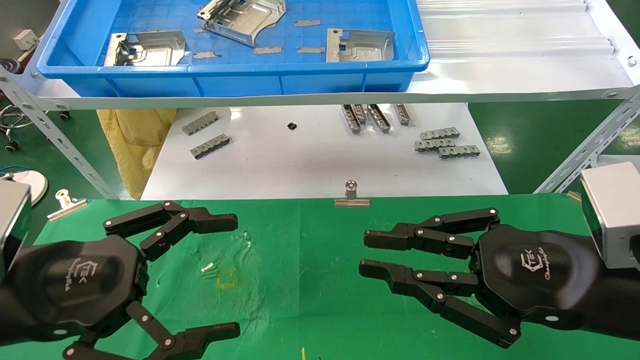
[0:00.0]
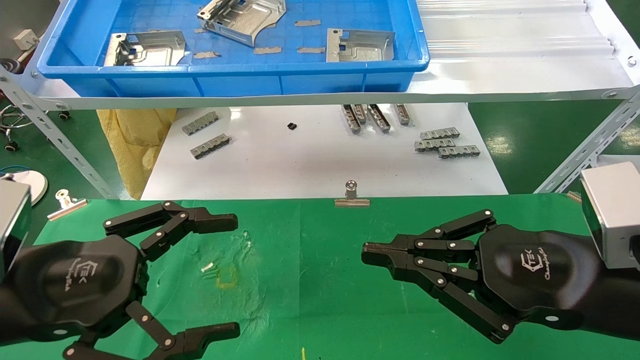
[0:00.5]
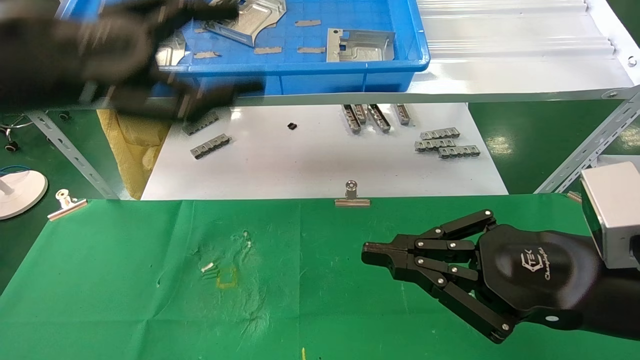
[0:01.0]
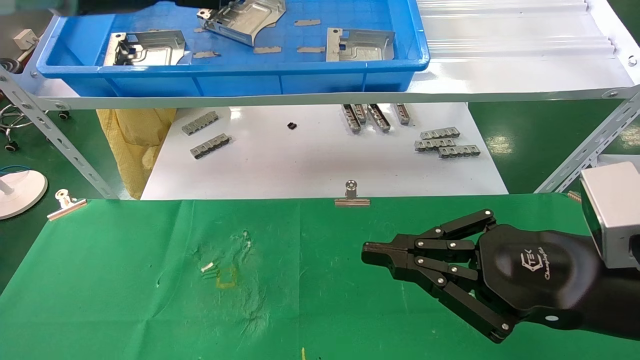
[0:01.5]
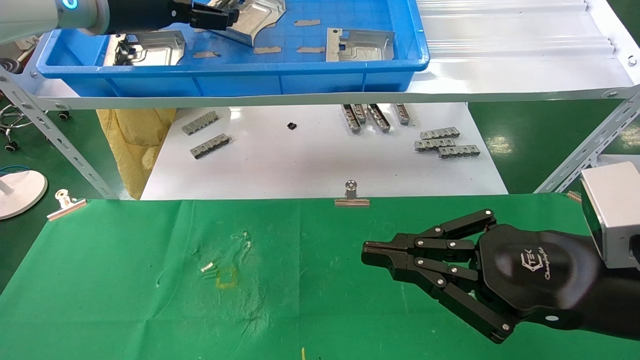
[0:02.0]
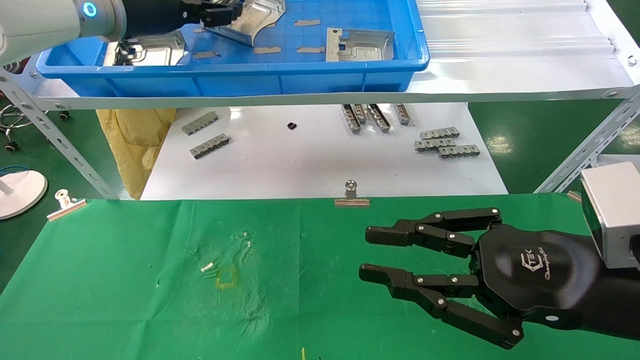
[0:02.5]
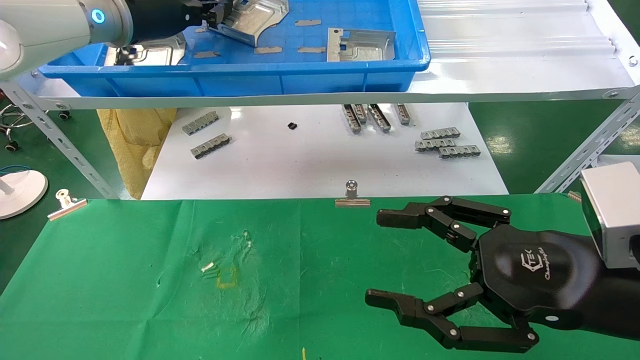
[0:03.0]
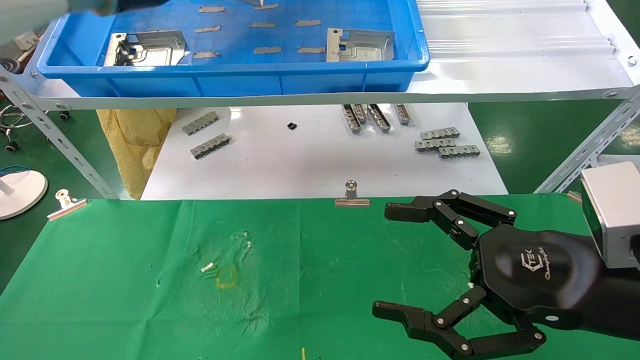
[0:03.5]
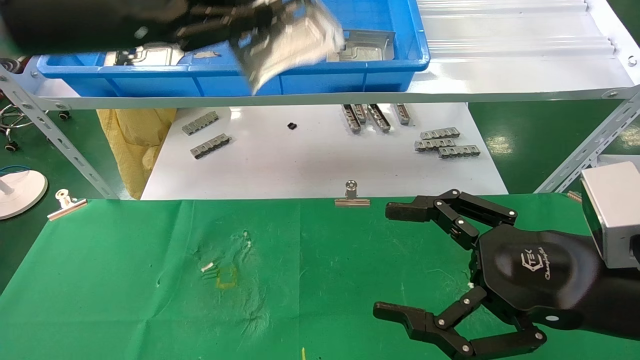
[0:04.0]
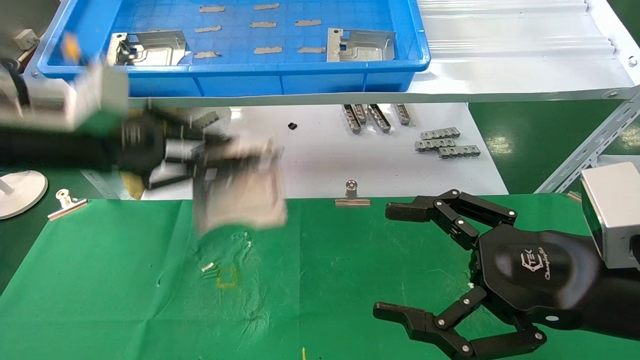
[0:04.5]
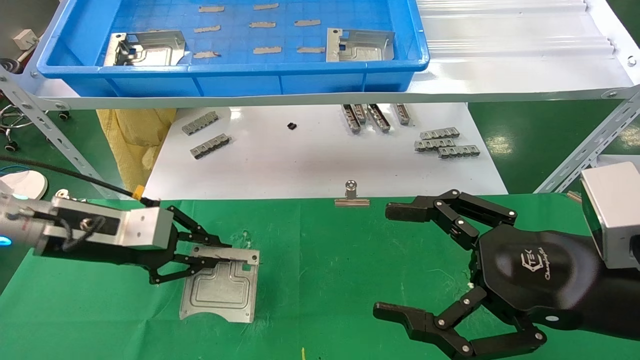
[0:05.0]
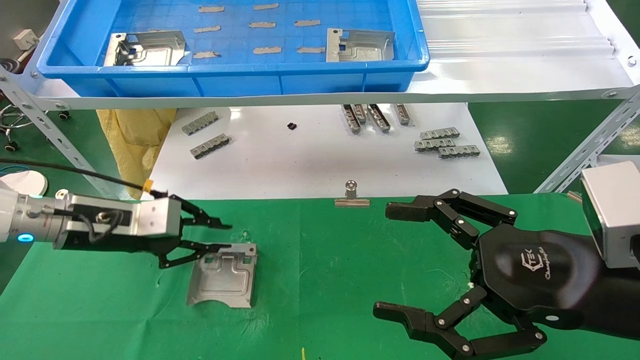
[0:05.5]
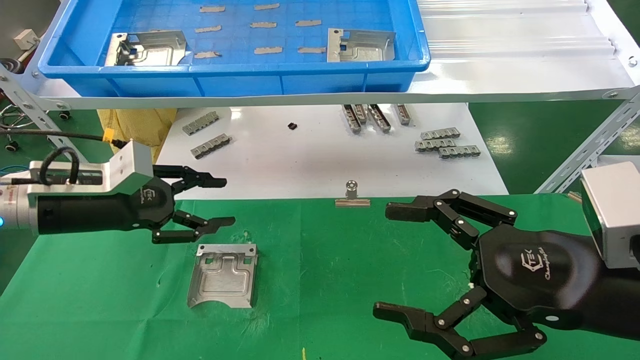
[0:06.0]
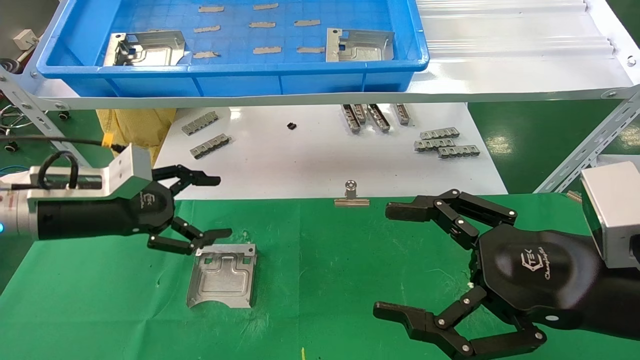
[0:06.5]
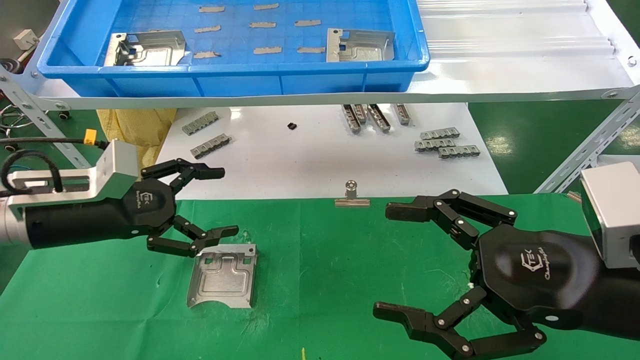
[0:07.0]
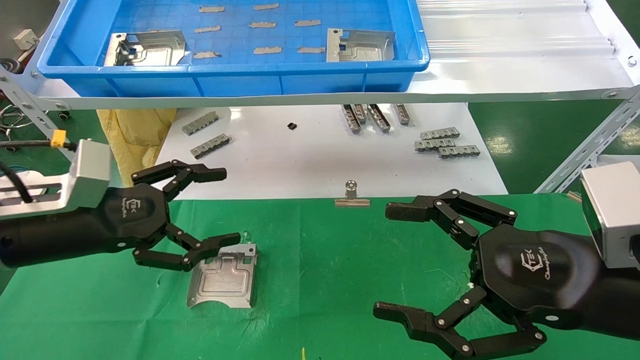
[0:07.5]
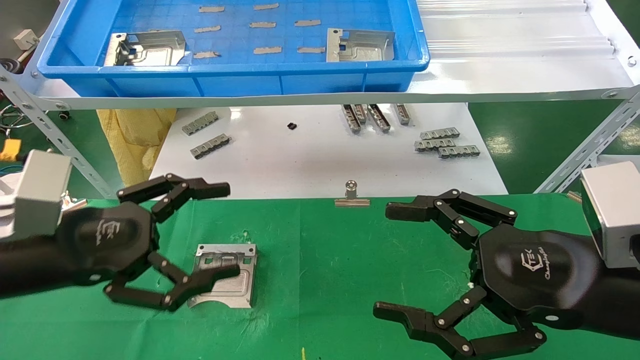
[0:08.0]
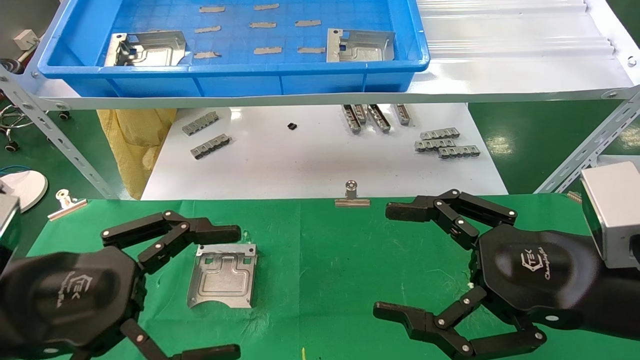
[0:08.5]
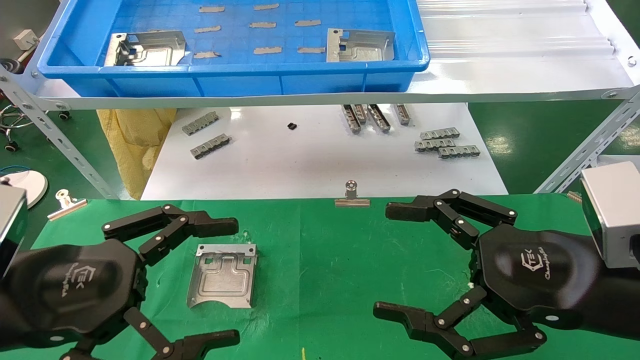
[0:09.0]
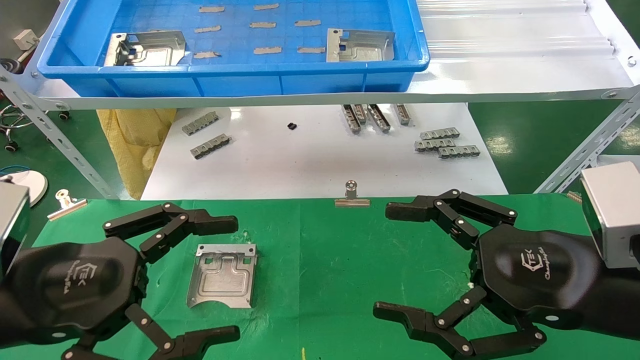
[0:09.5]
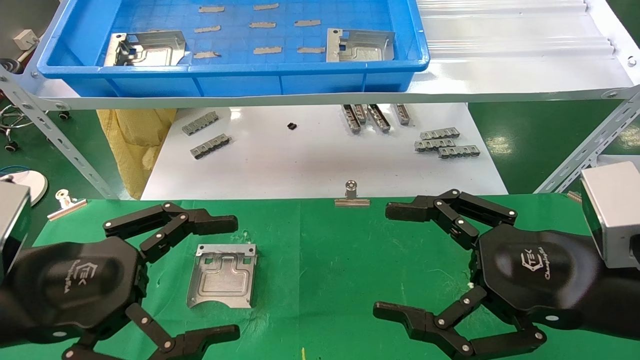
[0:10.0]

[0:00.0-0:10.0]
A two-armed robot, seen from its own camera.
Task of the whole recording: use the mechanical arm to pick up the parts and place them on the table.
Step, 0:01.0 to 0:03.0: Pick up the hard drive bracket from the feeding area.
Step, 0:03.5 to 0:05.0: Place the hard drive bracket into the box.
0:00.0 to 0:02.0: The left gripper moves upward and forward, about 35 cm.
0:02.0 to 0:04.0: The right gripper opens its fingers. The left gripper goes roughly 10 cm backward, and closes up.
0:04.0 to 0:06.0: The left gripper goes some 20 cm downward, and opens up.
0:06.0 to 0:08.0: The left gripper heads backward, covering about 10 cm, and opens.
0:08.0 to 0:10.0: The left gripper moves about 5 cm.

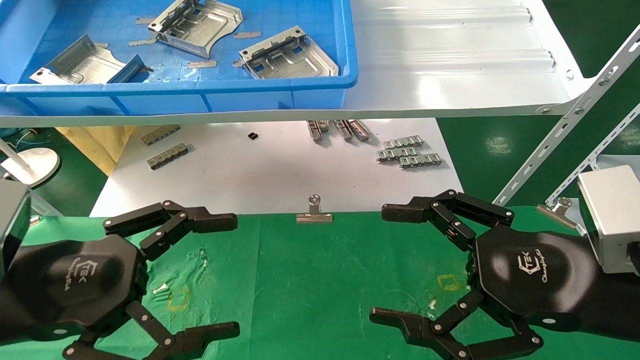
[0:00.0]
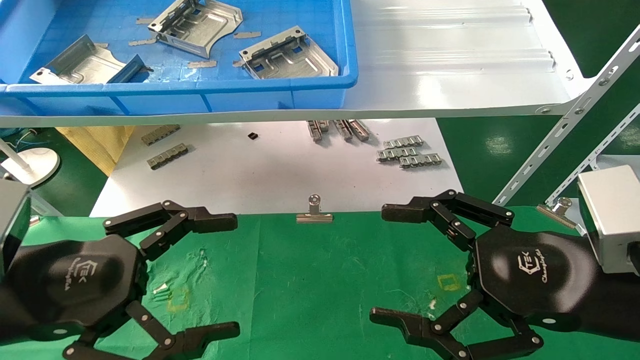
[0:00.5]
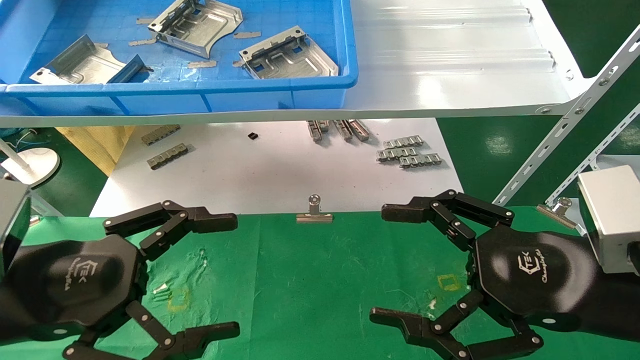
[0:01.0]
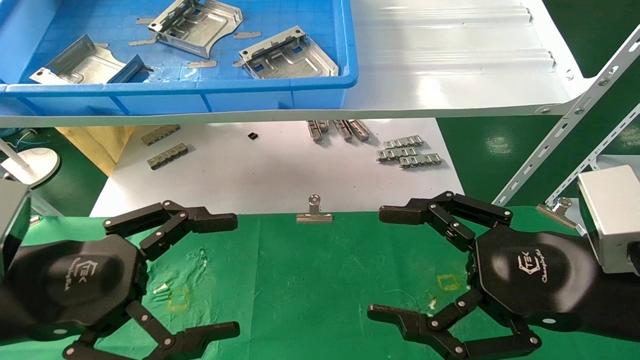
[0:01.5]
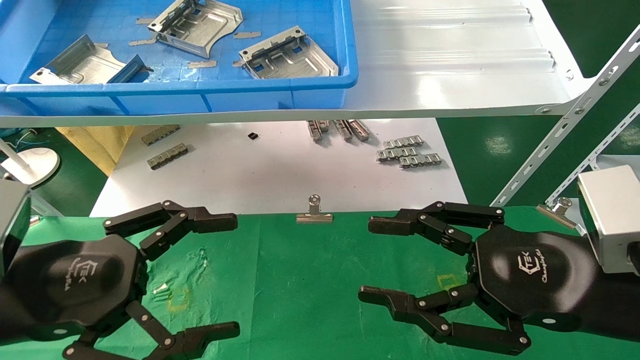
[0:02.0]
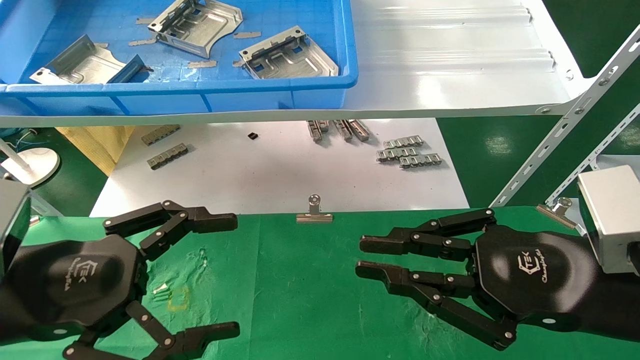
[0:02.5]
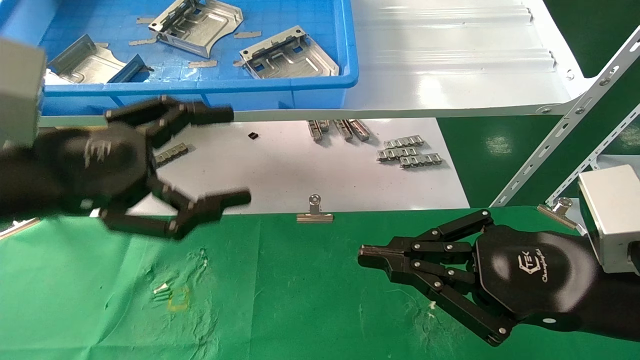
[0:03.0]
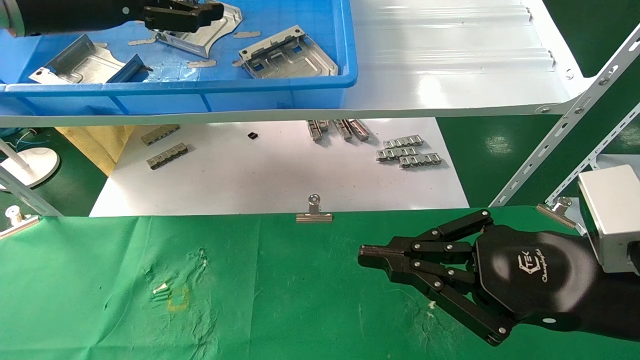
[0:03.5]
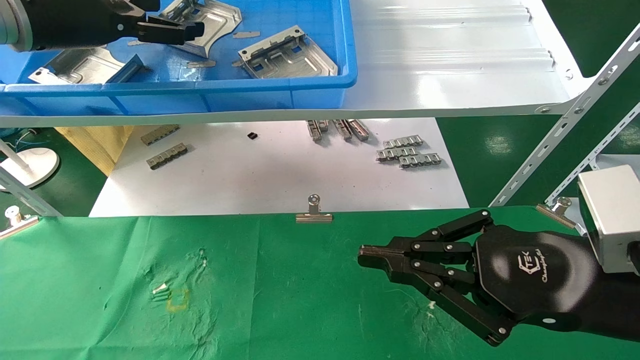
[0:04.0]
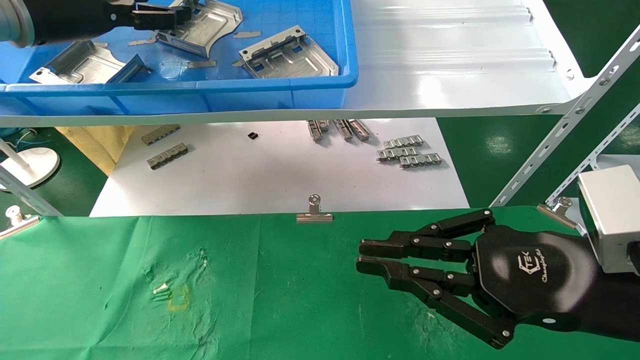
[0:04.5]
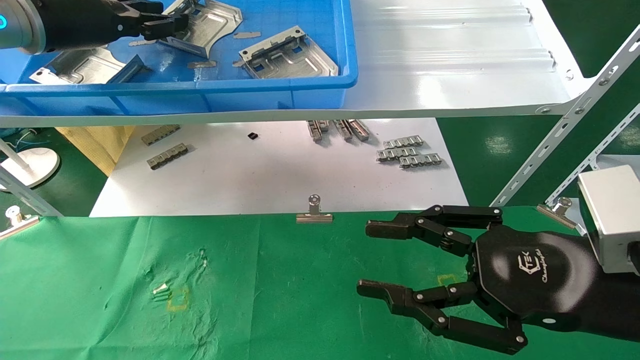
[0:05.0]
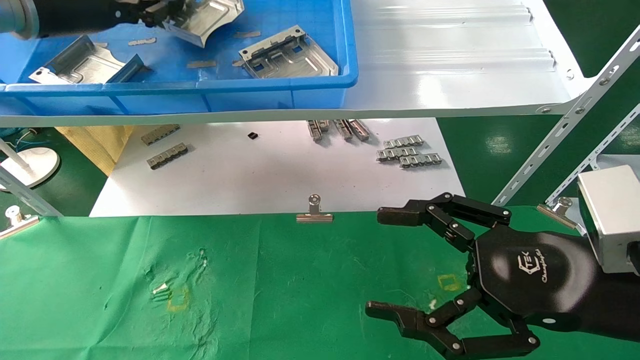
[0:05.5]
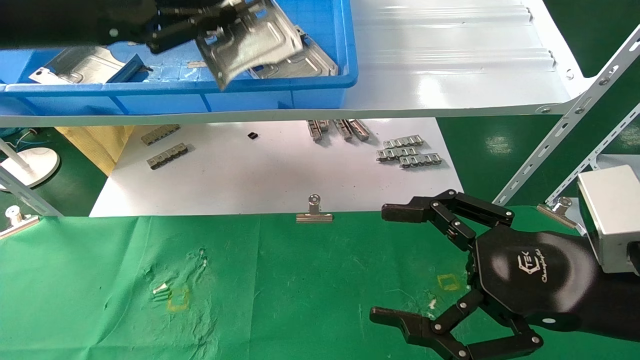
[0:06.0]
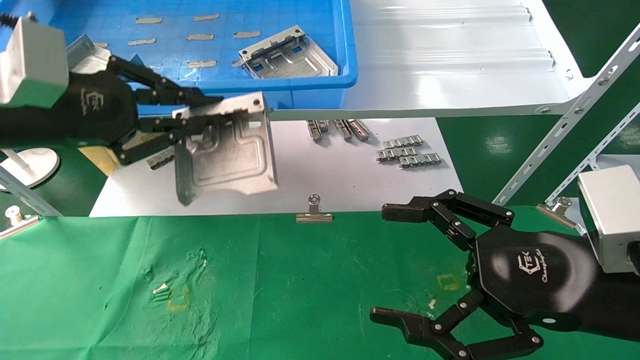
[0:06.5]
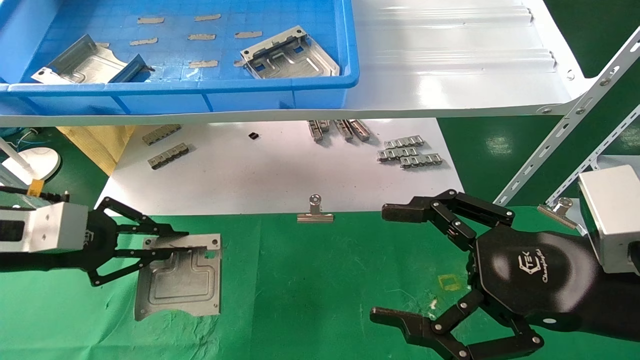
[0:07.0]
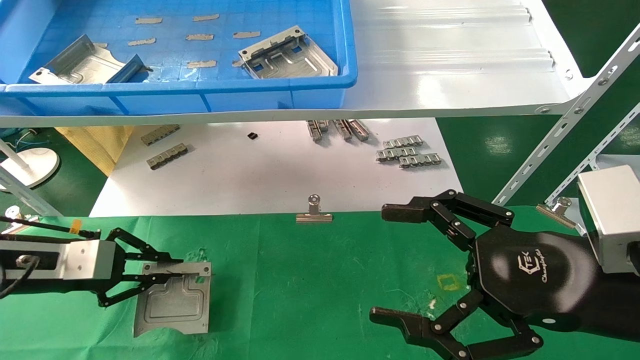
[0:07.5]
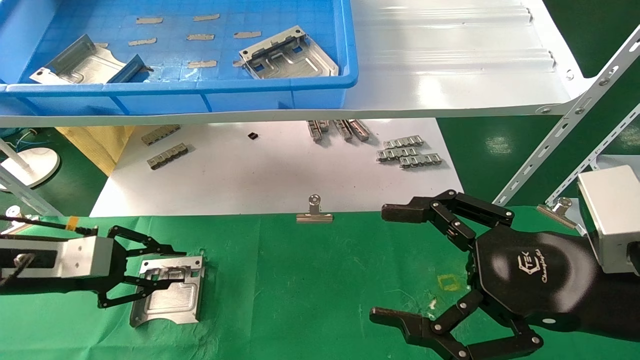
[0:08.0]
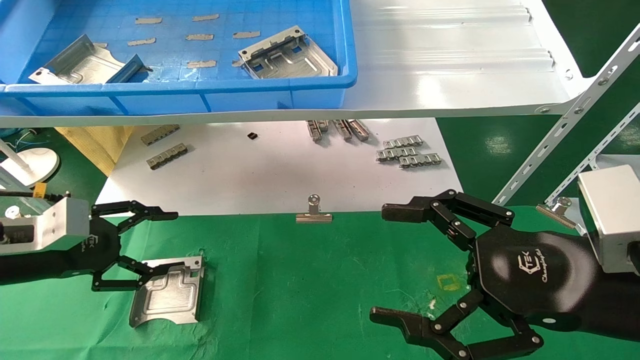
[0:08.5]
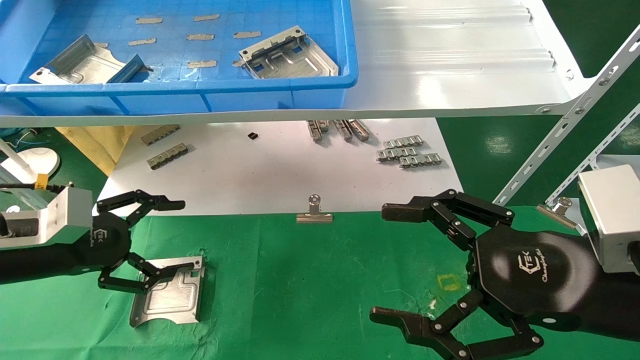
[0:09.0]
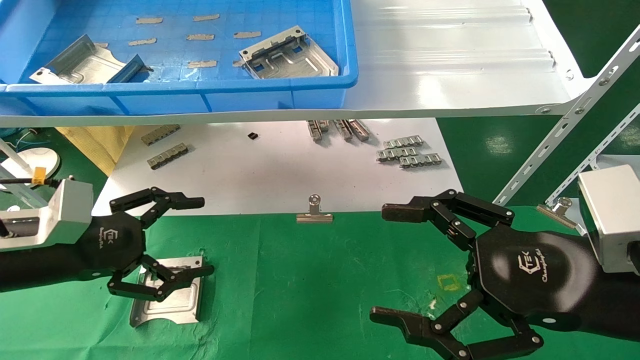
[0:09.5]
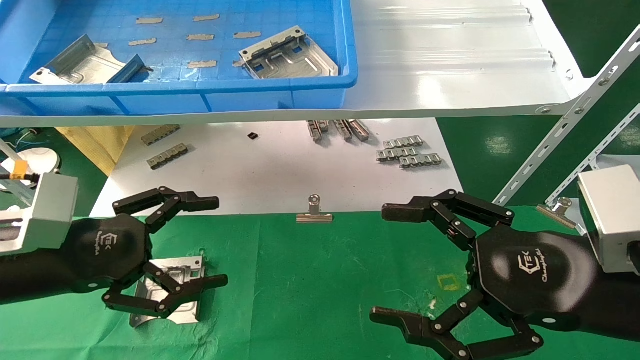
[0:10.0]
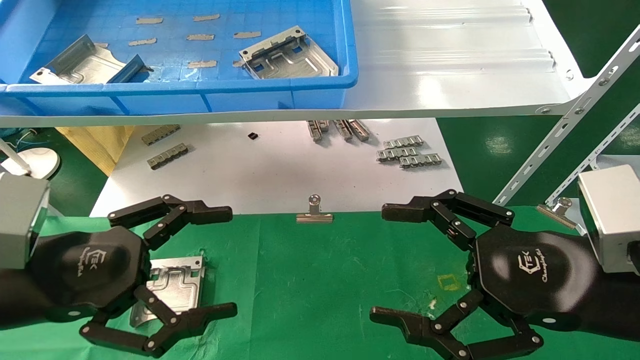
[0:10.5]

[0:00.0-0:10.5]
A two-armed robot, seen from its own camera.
Task of the whole recording: use the mechanical arm to pick up the parts and place them on the table.
Step, 0:03.5 to 0:05.5: Pick up the hard drive bracket from the feeding area.
Step, 0:06.0 to 0:07.5: Place the hard drive bracket into the box.
0:00.0 to 0:02.0: Neither gripper changes place.
0:02.0 to 0:04.0: The left gripper shifts about 30 cm upward and forward. The right gripper closes.
0:04.0 to 0:06.5: The right gripper opens up. The left gripper moves backward and downward, about 15 cm, and closes its fingers.
0:06.5 to 0:08.5: The left gripper travels downward by about 15 cm, and opens up.
0:08.5 to 0:10.5: The left gripper heads backward and to the right, covering some 15 cm, and opens its fingers.
